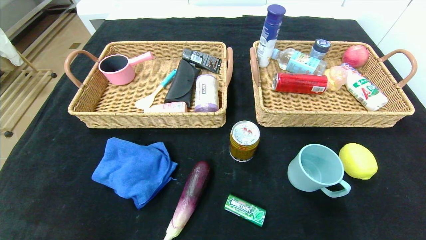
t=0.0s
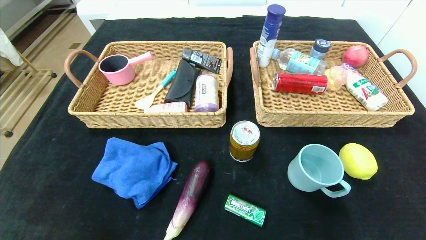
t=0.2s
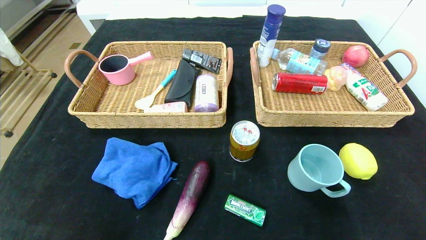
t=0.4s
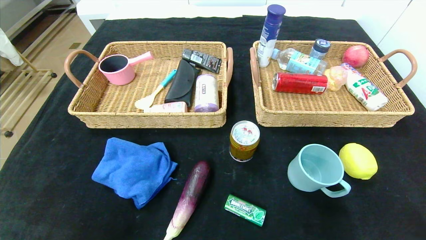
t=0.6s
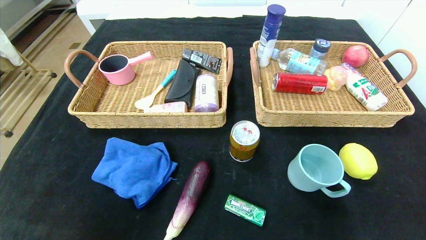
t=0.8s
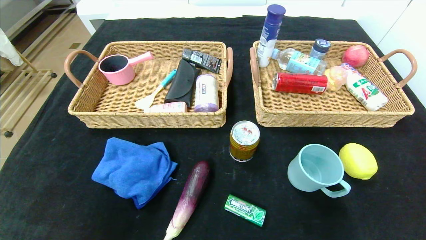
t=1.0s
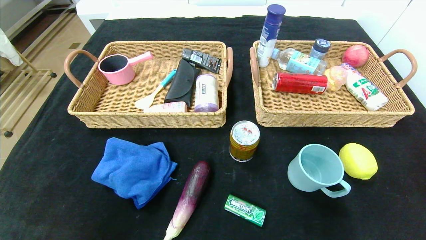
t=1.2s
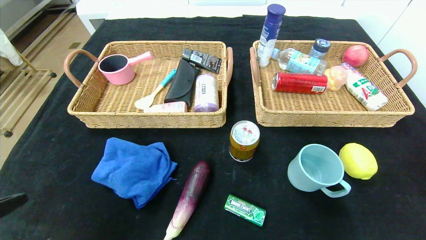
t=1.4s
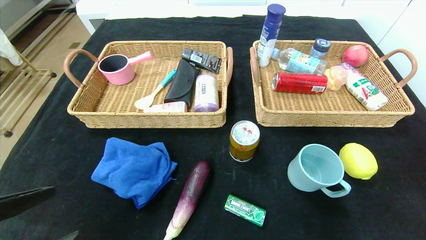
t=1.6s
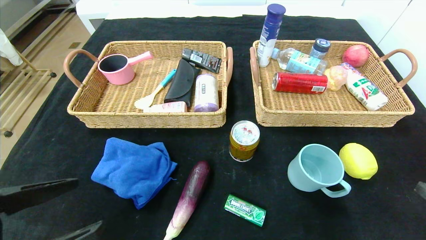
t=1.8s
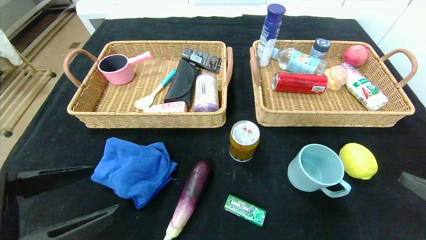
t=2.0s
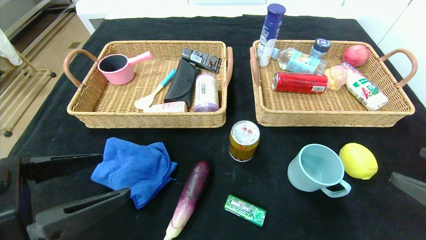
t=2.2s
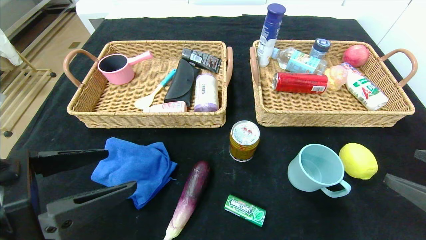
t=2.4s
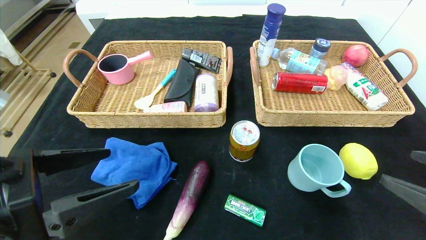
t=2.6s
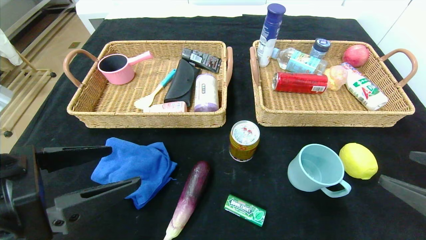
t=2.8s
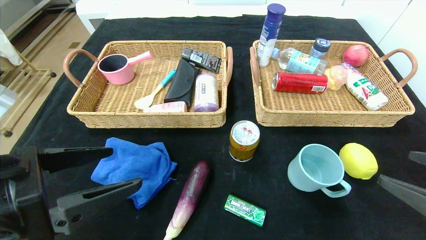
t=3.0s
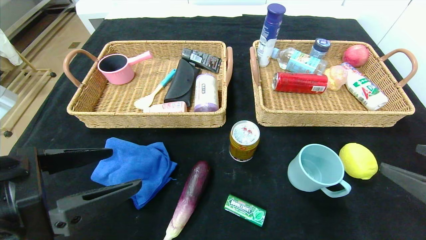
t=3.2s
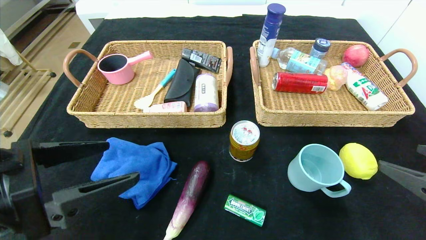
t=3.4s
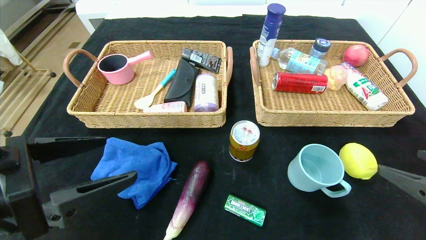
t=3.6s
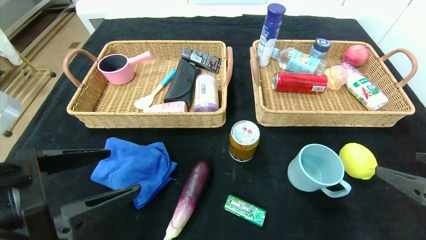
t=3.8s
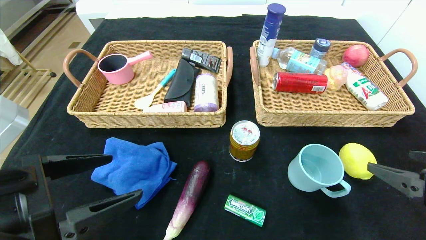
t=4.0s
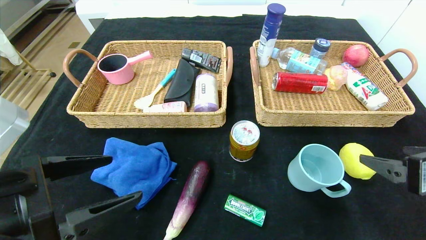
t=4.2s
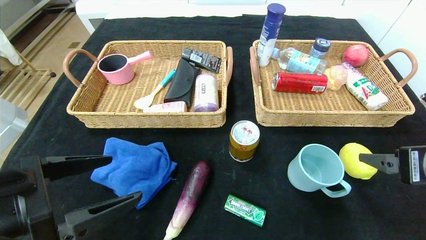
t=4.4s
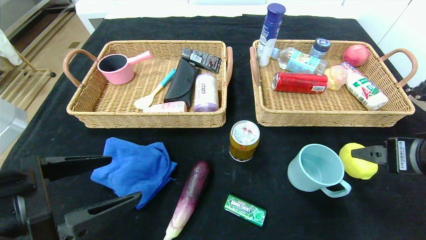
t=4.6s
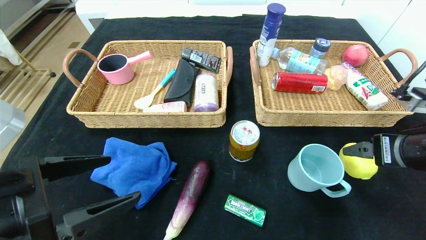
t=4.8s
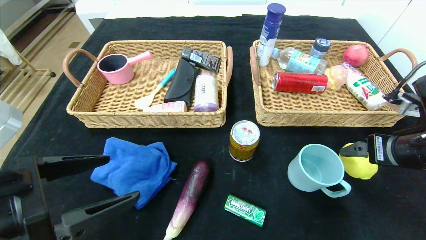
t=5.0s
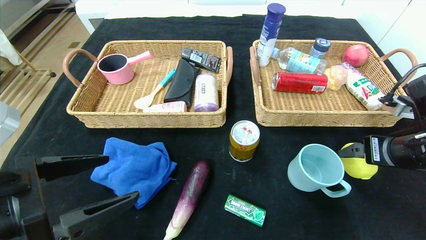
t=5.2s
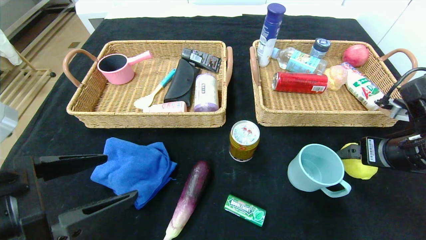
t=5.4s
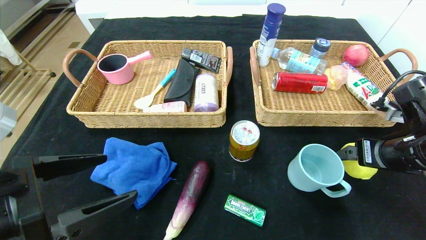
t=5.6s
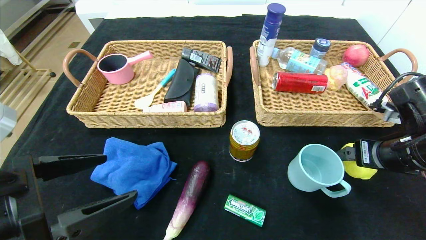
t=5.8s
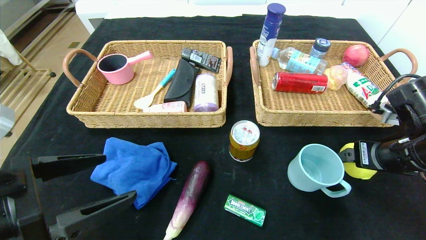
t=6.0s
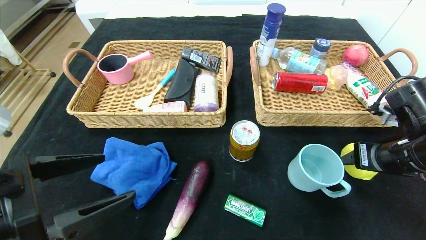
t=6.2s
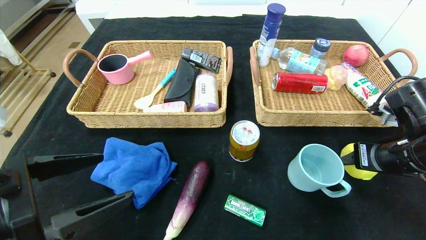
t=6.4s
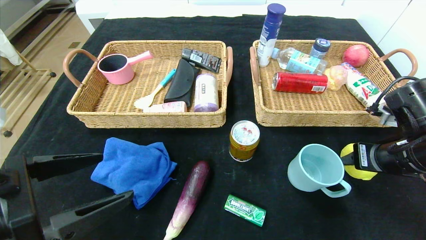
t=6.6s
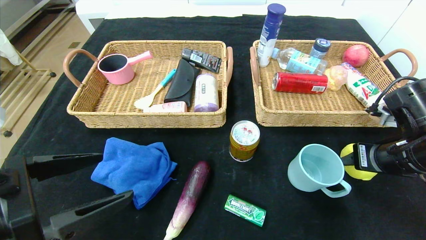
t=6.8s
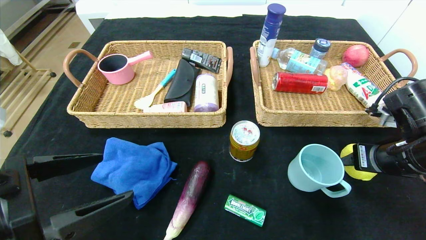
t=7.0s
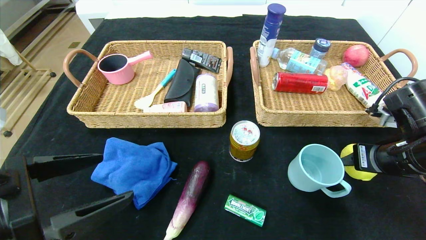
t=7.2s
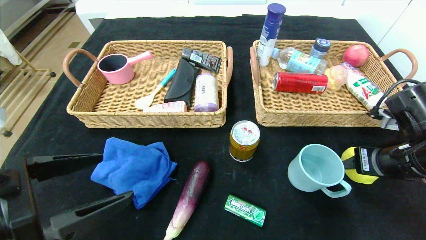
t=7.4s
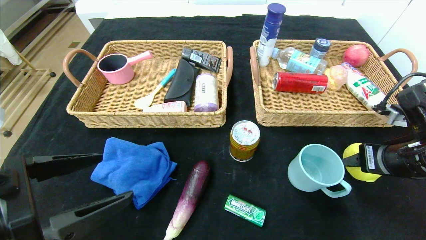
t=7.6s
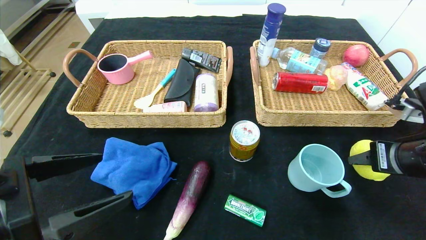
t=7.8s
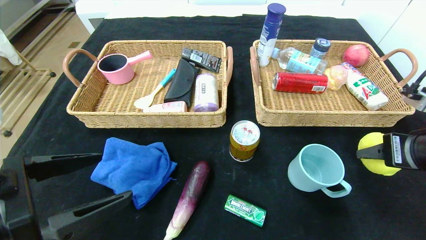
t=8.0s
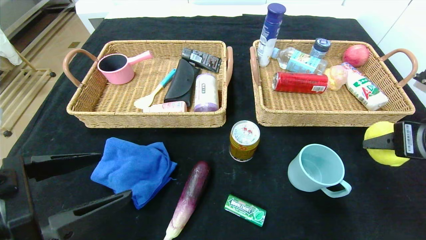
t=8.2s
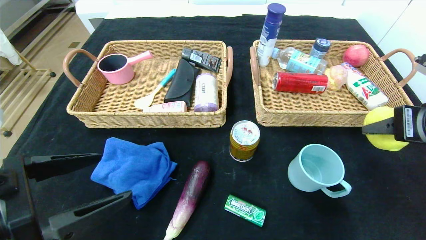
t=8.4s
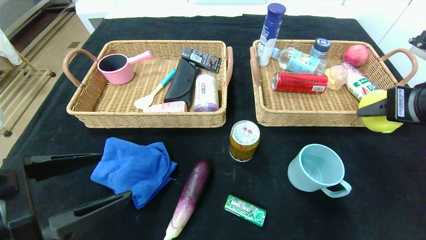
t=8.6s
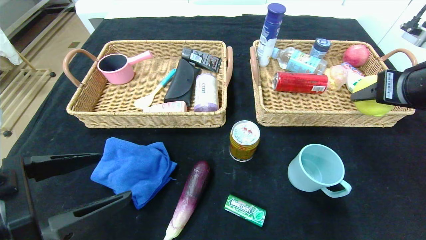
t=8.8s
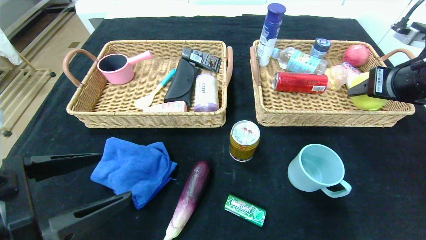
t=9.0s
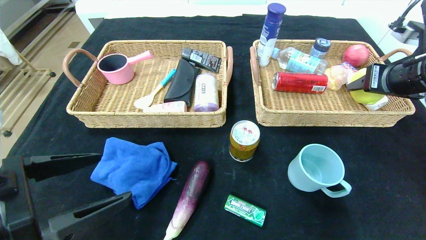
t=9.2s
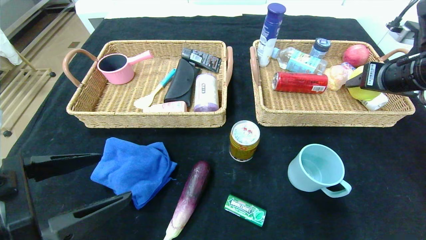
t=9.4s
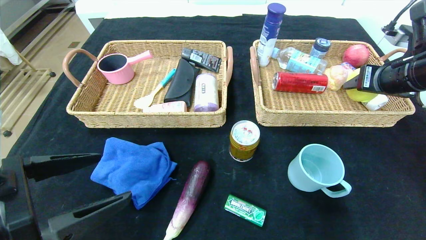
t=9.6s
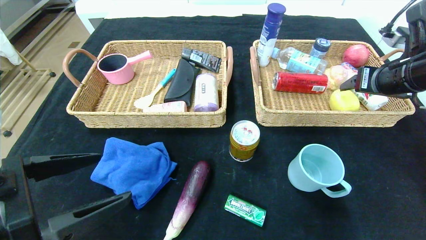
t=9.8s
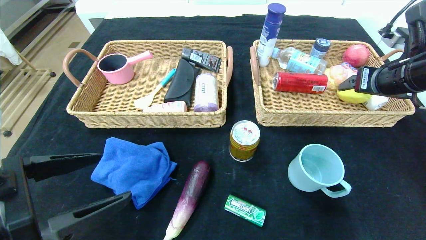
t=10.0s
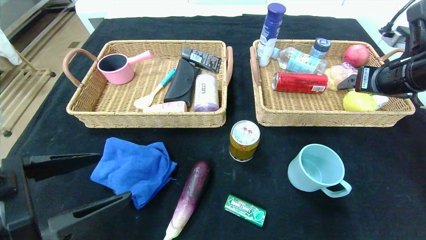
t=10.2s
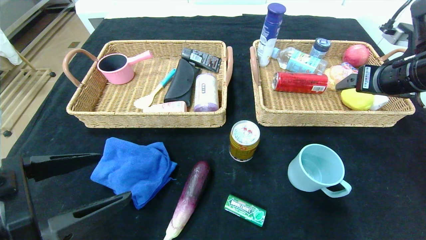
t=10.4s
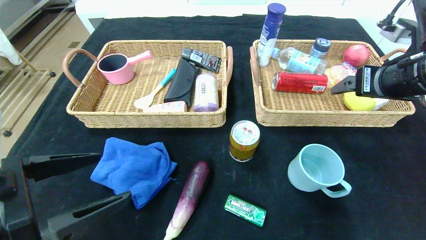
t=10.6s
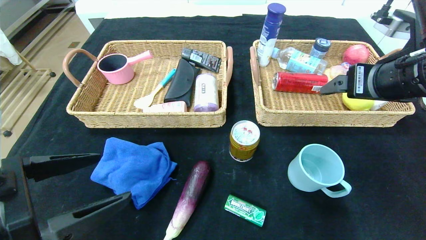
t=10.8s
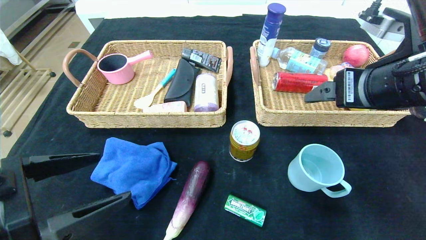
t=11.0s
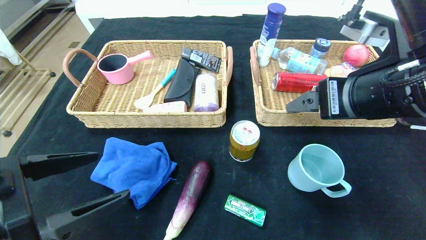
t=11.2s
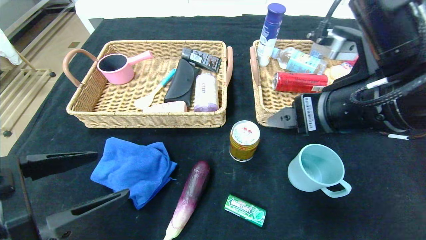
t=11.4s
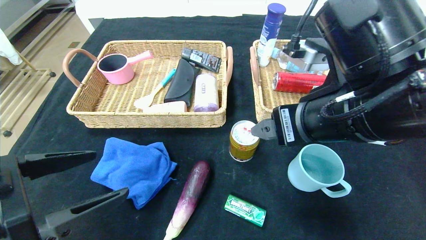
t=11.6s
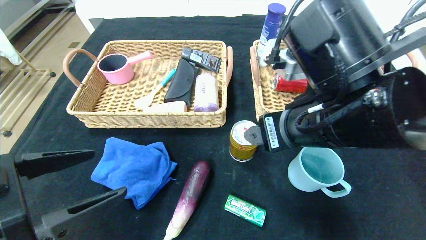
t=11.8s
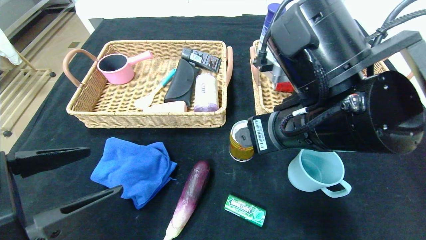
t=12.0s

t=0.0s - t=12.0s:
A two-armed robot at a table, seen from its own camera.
Step, t=0.0s - t=11.4s: Pick up the lemon and put it in the right basket.
t=0.0s - t=1.6s: Both grippers move upward and forward, roughly 20 cm.
t=1.6s - t=3.0s: The left gripper moves forward, some 5 cm.
t=3.0s - t=4.4s: The right gripper shifts about 5 cm forward.
t=4.4s - t=6.0s: The right gripper heads forward, covering some 10 cm.
t=6.0s - t=7.6s: There are only small adjustments of the grippers.
t=7.6s - t=9.0s: The right gripper is displaced upward and forward by roughly 10 cm.
t=9.0s - t=10.4s: The right gripper opens its fingers.
t=10.4s - t=12.0s: The right gripper shifts some 20 cm to the left and backward.

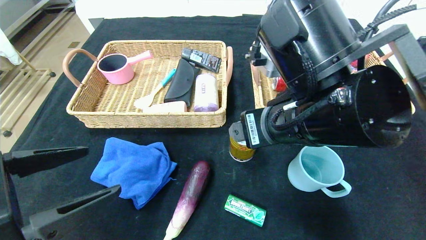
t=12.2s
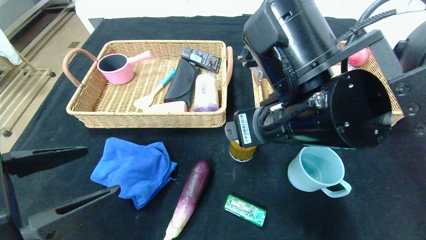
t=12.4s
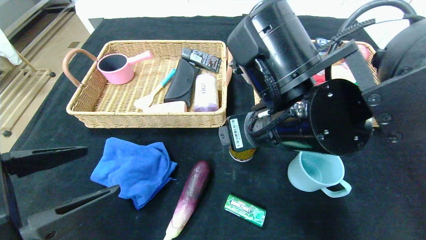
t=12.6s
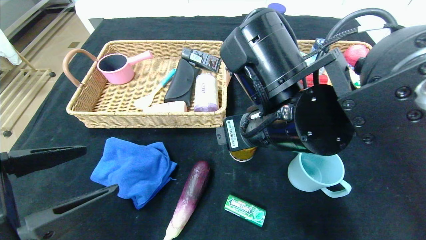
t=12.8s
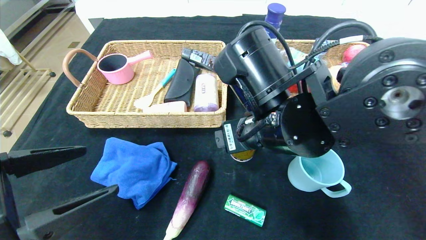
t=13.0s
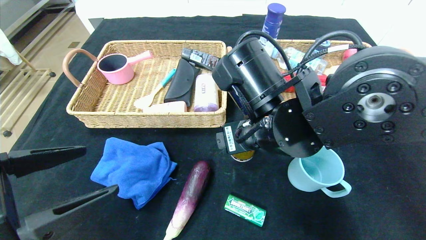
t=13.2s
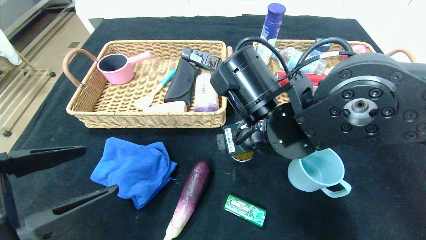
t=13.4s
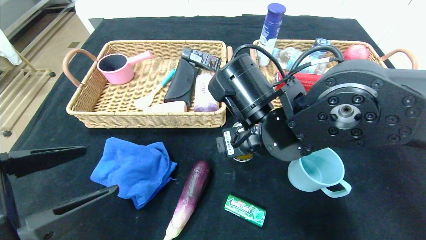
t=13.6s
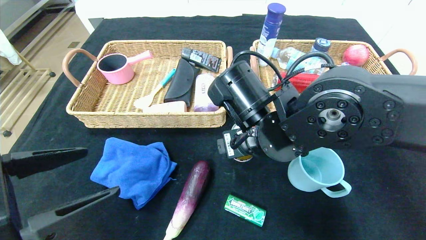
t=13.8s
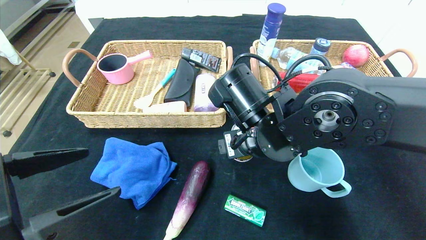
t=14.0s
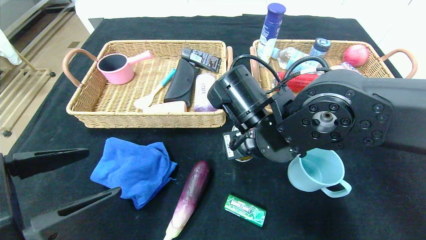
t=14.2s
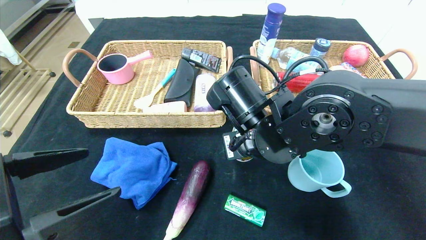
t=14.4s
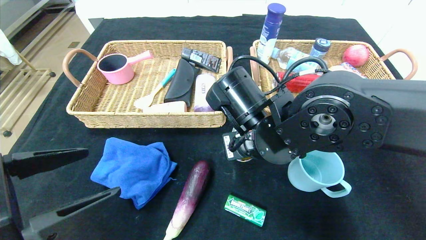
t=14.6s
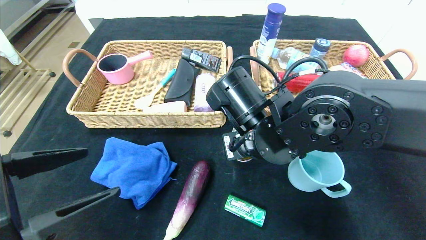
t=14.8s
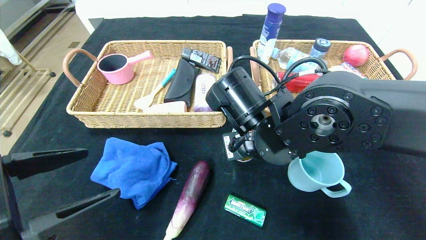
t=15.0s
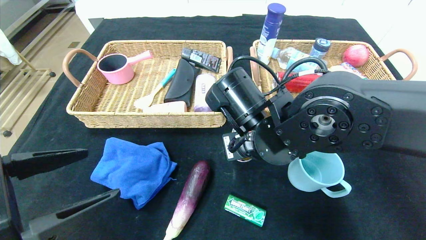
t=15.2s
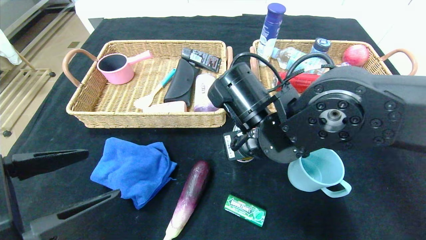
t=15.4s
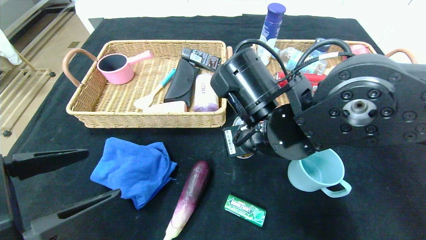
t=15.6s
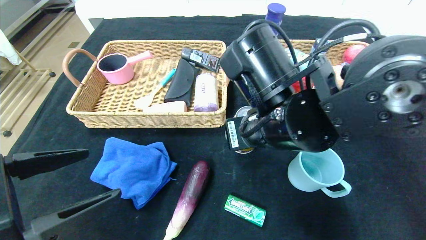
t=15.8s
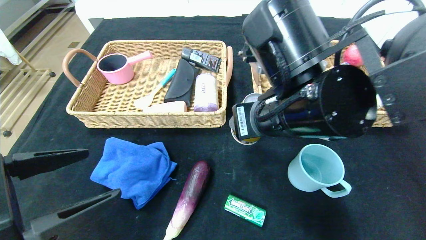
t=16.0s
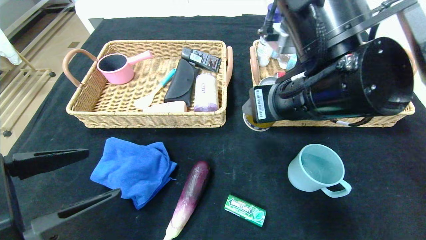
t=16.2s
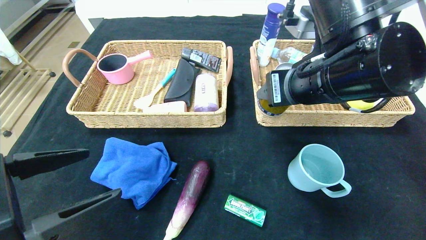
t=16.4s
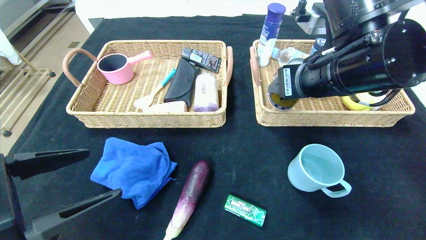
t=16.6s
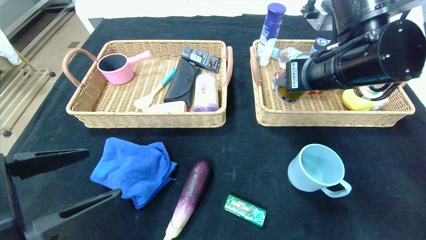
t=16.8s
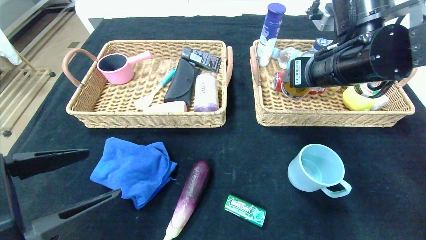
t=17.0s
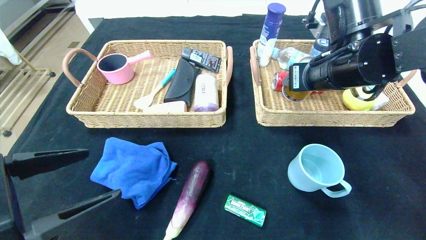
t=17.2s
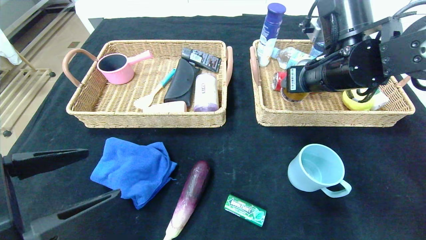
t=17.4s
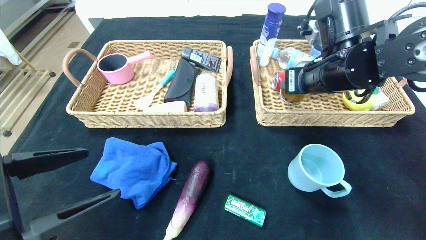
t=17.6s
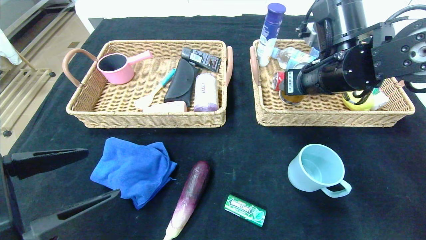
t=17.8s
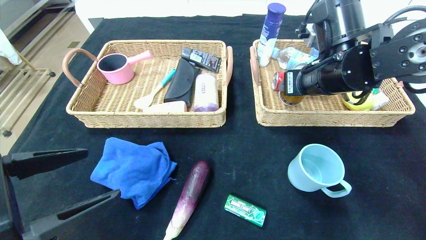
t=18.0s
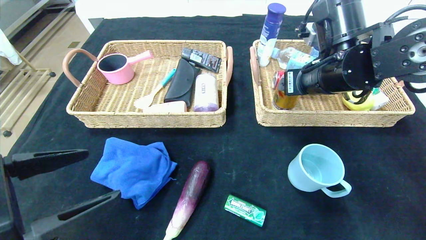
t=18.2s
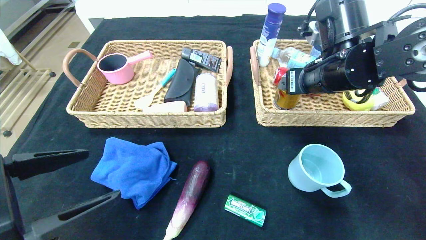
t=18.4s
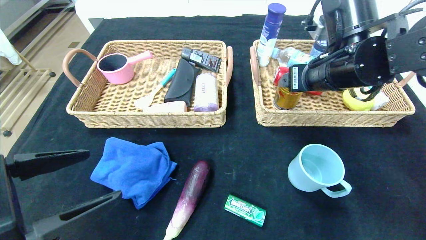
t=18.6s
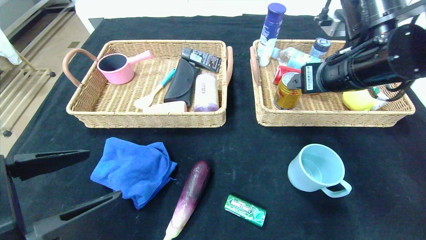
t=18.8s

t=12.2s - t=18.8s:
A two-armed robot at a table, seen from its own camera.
t=12.2s - t=13.8s: The right gripper heads downward, covering approximately 5 cm.
t=13.8s - t=15.4s: Neither gripper changes place.
t=15.4s - t=17.2s: The right gripper travels to the right, upward and forward by approximately 15 cm.
t=17.2s - t=18.8s: The grippers move only a little.
